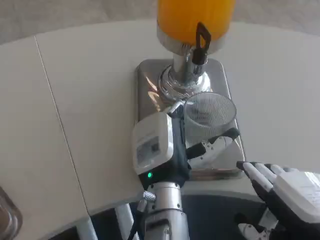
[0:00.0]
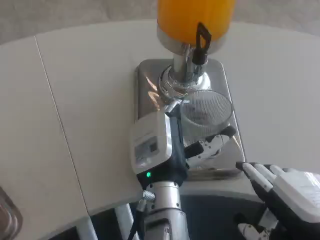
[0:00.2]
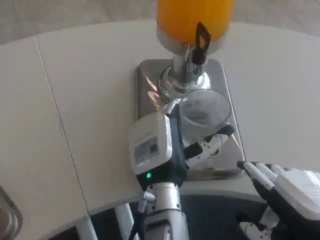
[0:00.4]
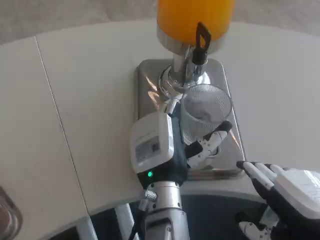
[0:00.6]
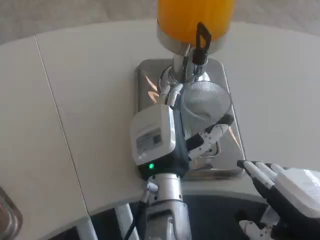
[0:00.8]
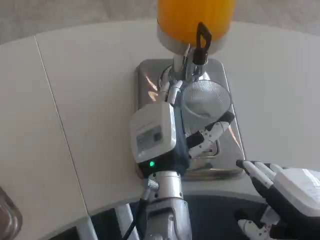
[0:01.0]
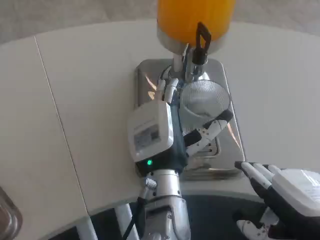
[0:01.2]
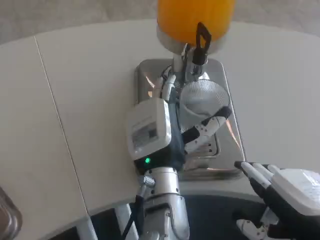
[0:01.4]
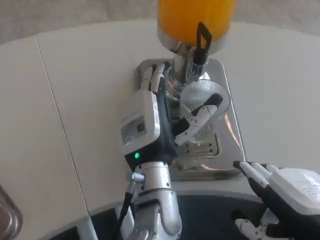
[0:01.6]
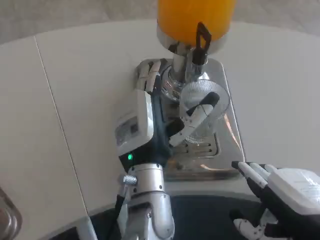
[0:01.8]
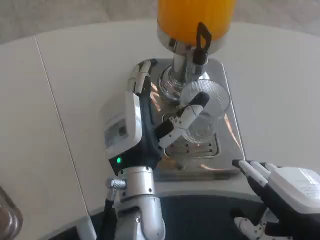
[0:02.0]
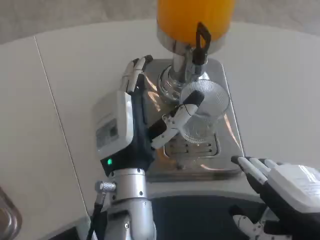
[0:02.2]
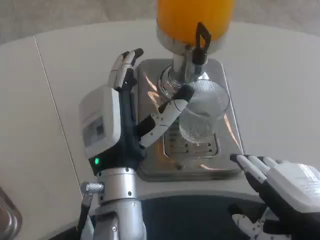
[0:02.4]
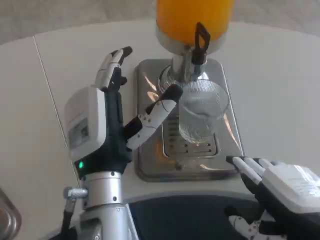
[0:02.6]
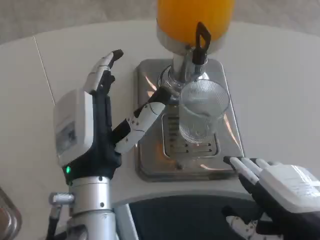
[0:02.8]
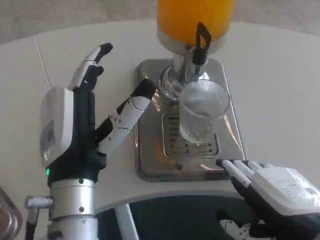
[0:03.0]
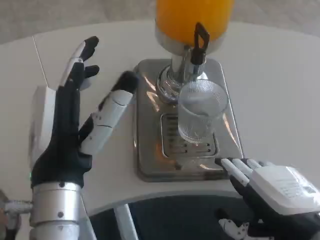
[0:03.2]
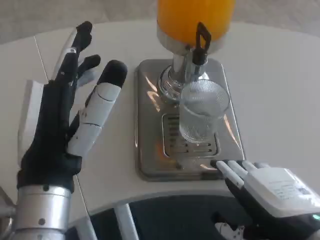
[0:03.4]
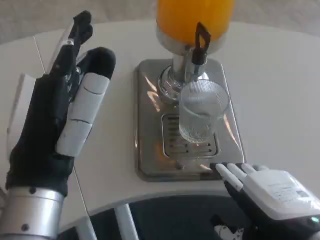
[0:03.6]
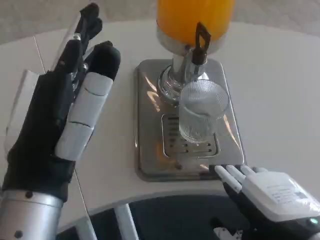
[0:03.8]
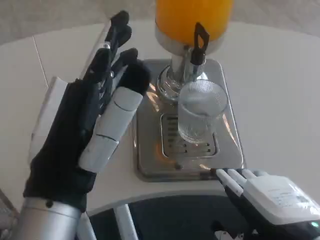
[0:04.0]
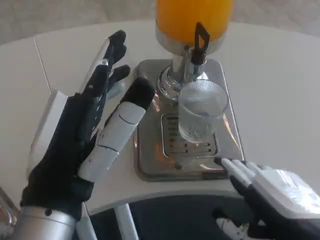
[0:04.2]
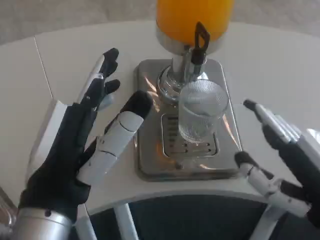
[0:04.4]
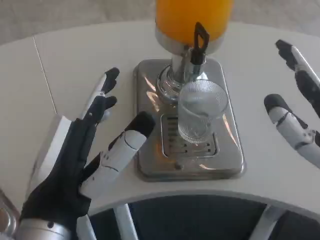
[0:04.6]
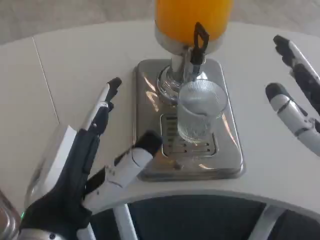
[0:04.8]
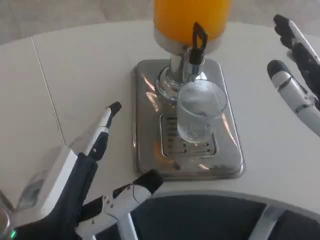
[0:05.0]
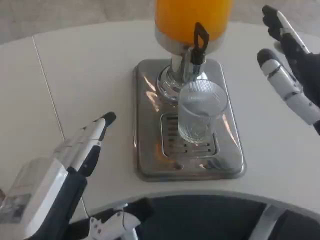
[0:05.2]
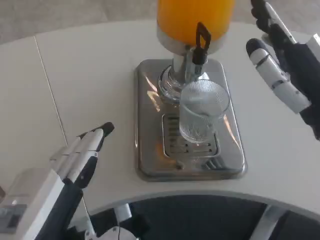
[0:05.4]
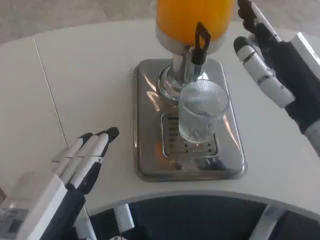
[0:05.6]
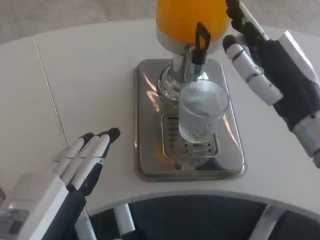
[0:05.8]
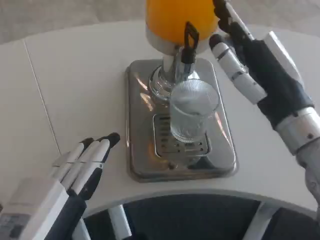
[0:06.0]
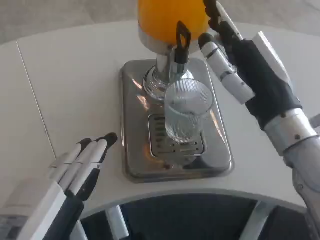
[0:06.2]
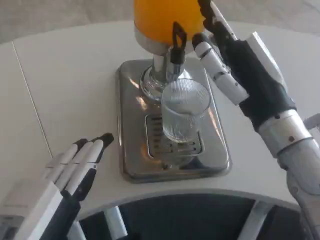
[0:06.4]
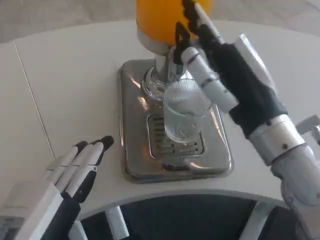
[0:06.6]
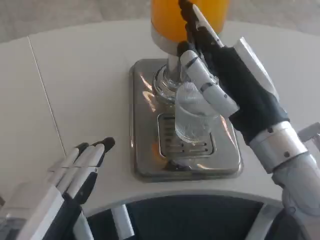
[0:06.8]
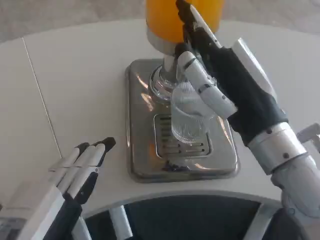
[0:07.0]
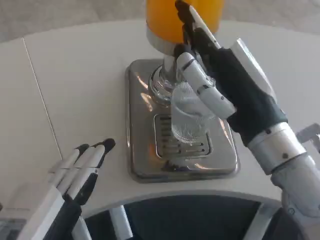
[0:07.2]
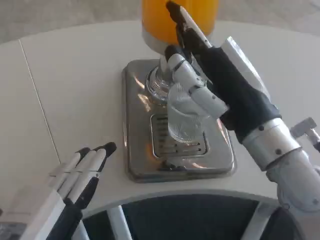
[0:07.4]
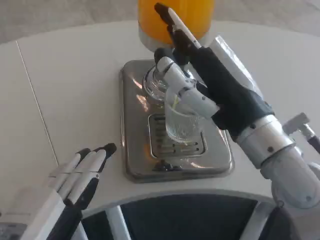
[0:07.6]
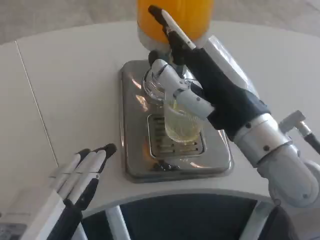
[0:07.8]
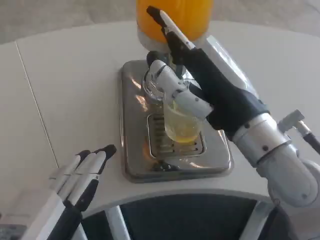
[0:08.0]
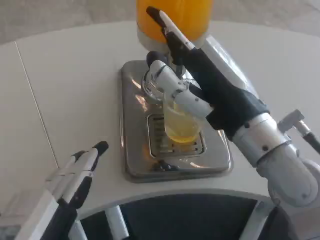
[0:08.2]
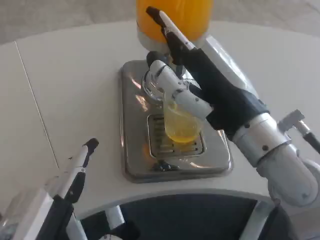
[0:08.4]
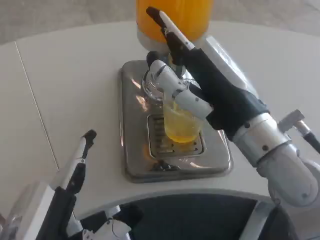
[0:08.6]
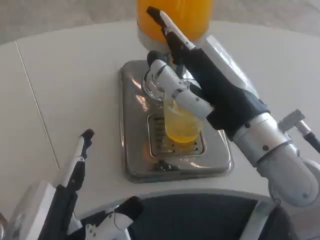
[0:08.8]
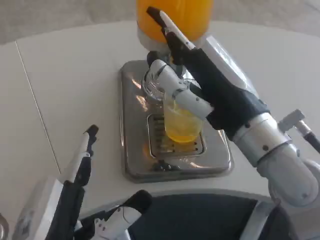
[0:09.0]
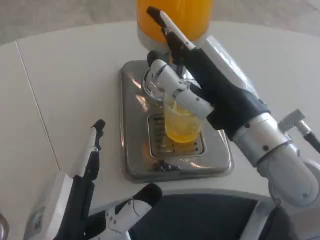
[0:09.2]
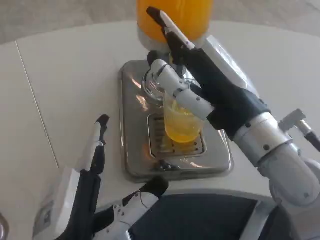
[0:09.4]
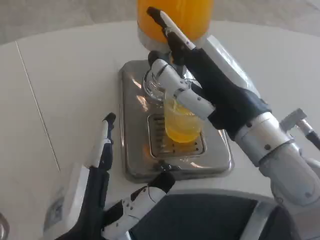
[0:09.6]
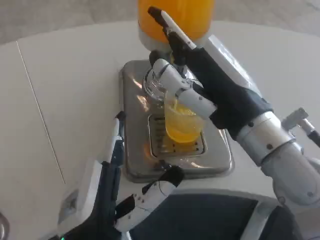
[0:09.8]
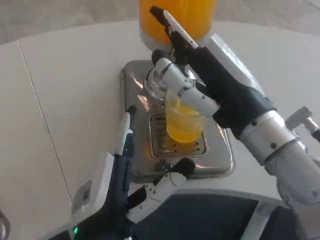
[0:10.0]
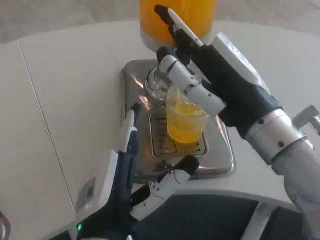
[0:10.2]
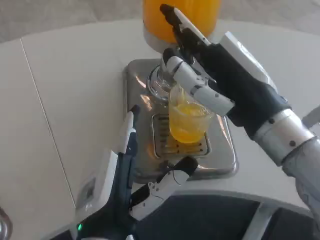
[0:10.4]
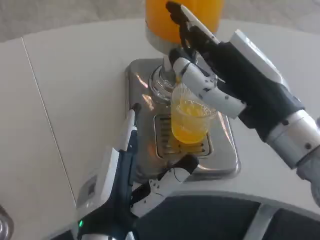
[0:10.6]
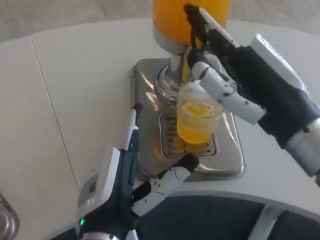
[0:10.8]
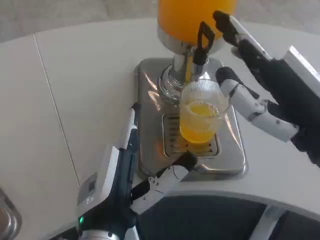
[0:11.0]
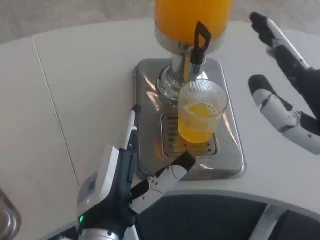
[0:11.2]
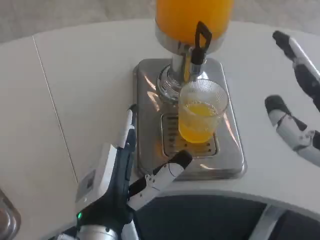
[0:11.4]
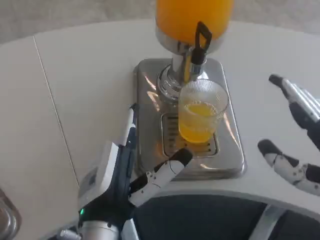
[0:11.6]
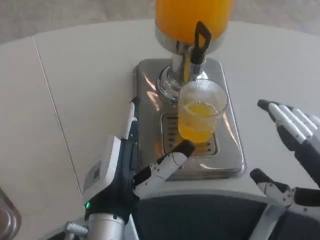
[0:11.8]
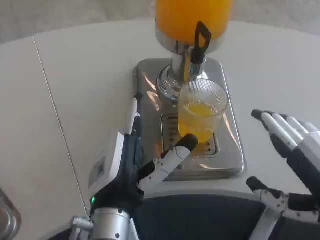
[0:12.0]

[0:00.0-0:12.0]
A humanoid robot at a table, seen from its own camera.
Task of the whole recording: Grasp the cup under the faucet to collect the drink, then remove the cup.
0:00.0 to 0:01.6: The hands move only a little.
0:01.6 to 0:03.0: The left hand shifts approximately 10 cm to the left and backward.
0:03.0 to 0:04.4: The left hand goes about 5 cm backward.
0:04.4 to 0:06.0: The right hand shifts roughly 10 cm forward. Meanwhile the left hand is displaced to the left and downward by roughly 10 cm.
0:06.0 to 0:07.6: The right hand shifts by roughly 5 cm.
0:07.6 to 0:09.0: The left hand changes place by roughly 5 cm.
0:09.0 to 0:10.4: The left hand travels to the right and forward by roughly 10 cm.
0:10.4 to 0:12.0: The right hand shifts approximately 15 cm to the right, backward and downward.

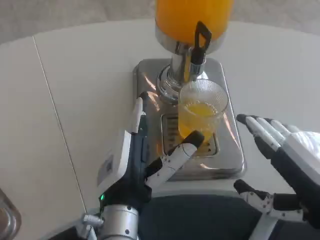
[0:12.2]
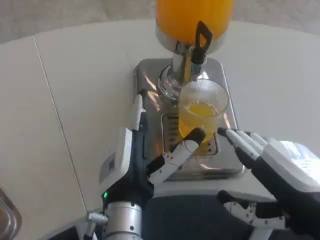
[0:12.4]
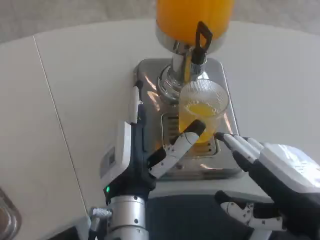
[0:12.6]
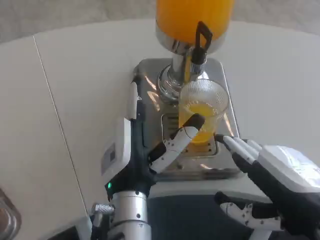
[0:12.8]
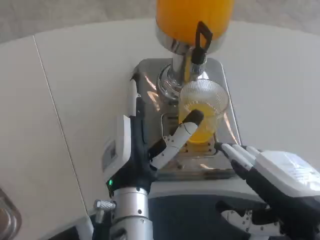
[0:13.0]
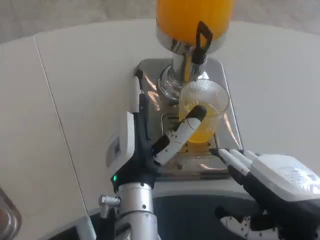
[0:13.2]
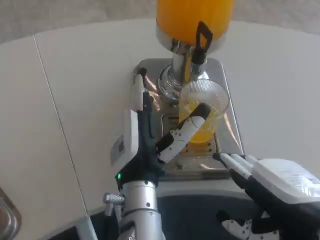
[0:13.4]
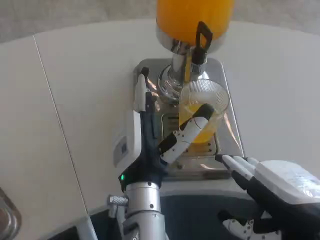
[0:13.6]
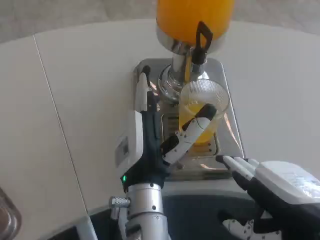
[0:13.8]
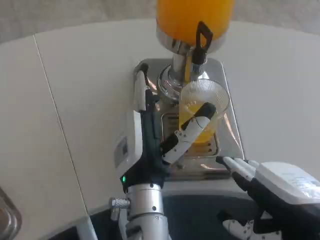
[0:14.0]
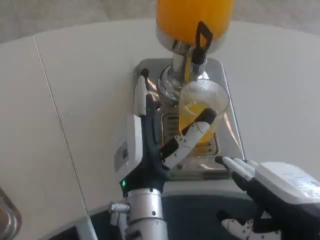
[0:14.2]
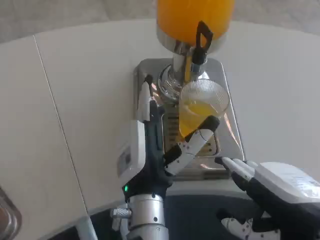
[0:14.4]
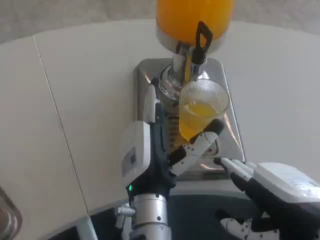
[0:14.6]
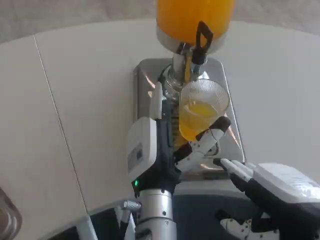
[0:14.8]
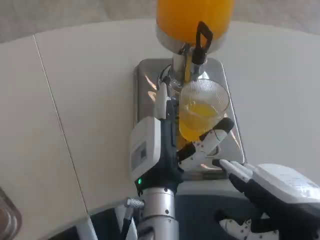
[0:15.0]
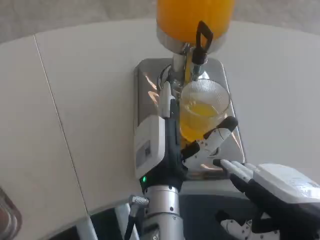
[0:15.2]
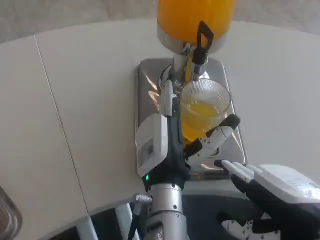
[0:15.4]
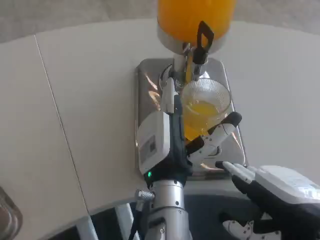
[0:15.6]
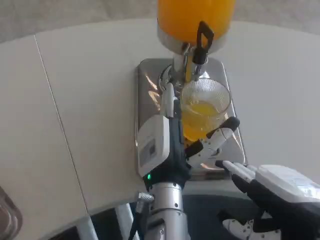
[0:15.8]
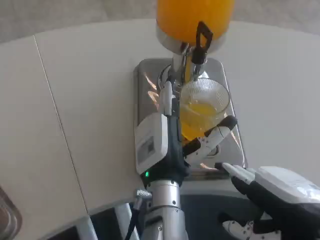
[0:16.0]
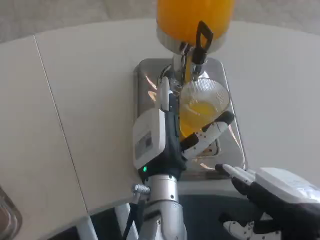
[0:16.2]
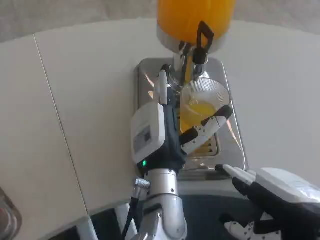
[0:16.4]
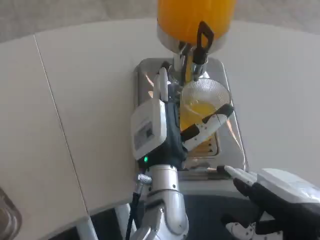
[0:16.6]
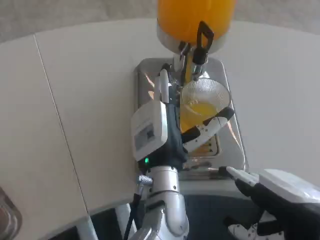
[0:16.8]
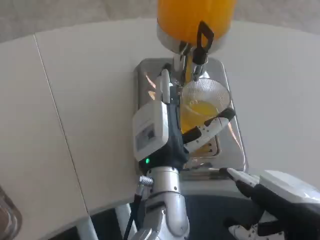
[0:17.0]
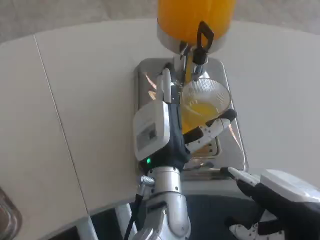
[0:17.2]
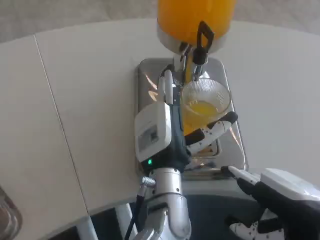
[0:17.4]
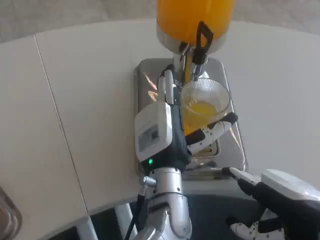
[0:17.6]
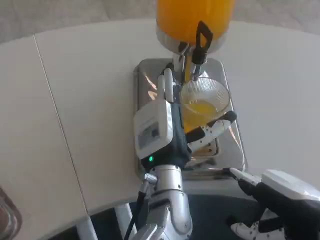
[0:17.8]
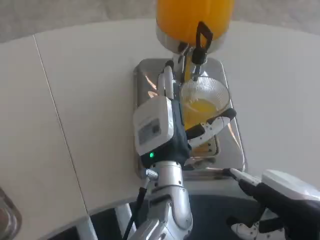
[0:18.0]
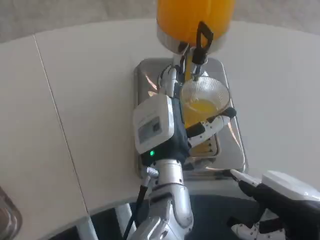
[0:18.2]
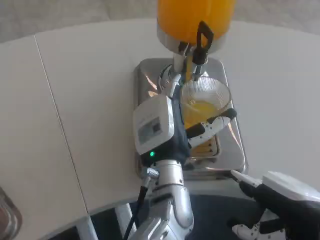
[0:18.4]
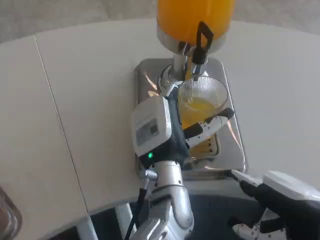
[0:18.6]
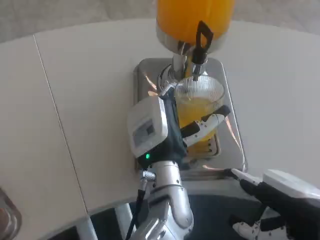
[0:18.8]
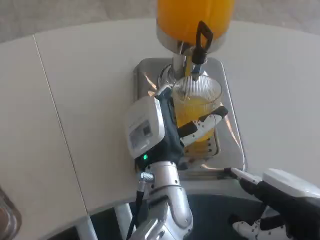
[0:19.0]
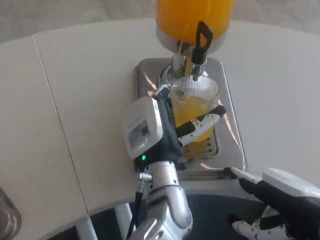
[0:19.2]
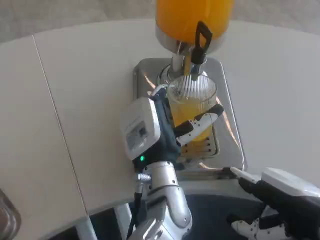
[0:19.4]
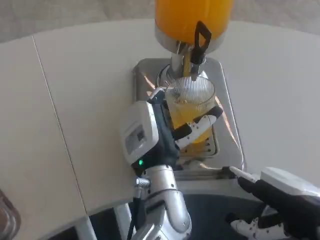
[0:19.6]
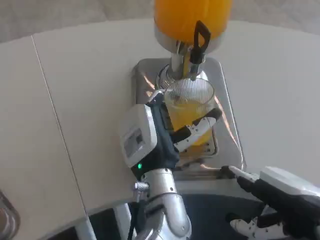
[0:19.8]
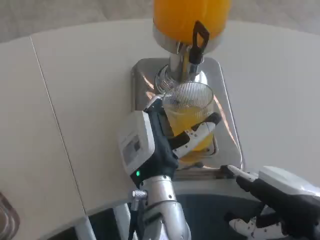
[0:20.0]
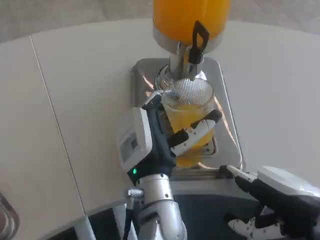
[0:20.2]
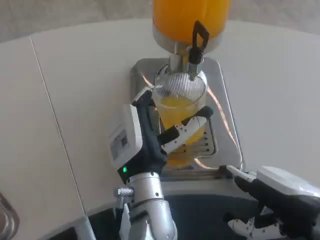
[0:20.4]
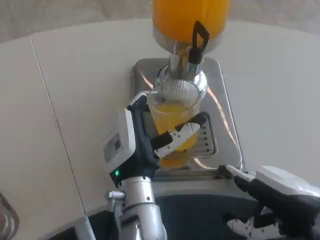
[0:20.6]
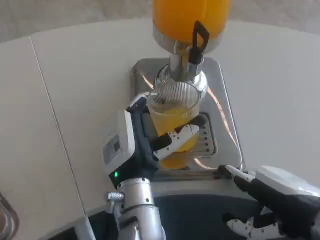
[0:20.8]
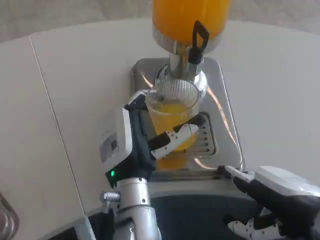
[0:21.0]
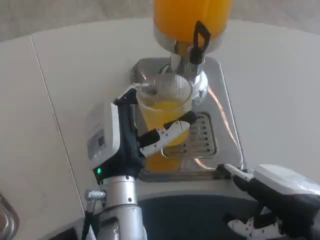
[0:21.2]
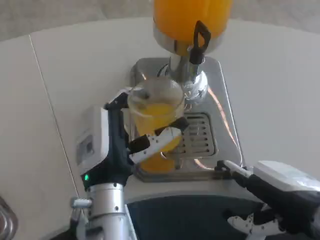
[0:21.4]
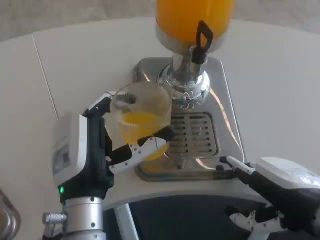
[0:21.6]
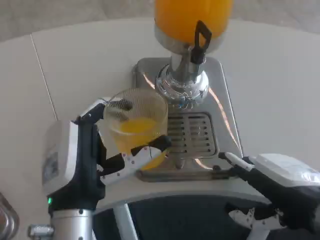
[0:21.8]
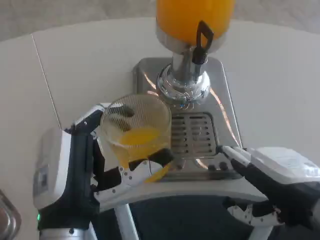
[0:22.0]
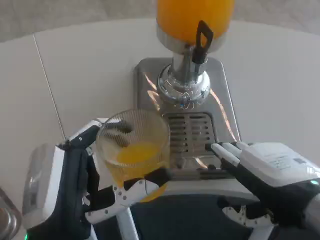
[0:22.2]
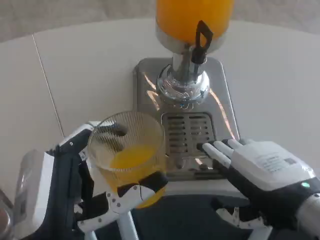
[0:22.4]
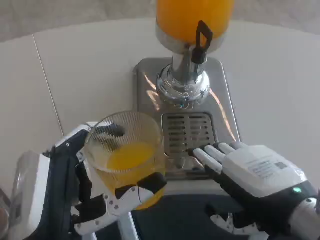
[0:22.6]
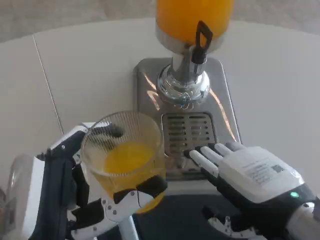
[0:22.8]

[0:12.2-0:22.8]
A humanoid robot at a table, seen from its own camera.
Task of the whole recording: Grasp the cup under the faucet to collect the drink, then remove the cup.
0:12.2 to 0:13.8: The left hand moves approximately 5 cm.
0:13.8 to 0:19.8: The hands move only a little.
0:19.8 to 0:21.2: The left hand shifts some 5 cm to the left.
0:21.2 to 0:22.8: The left hand moves backward and to the left, some 15 cm.
